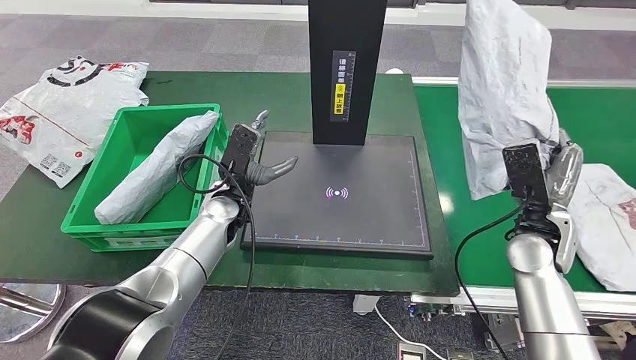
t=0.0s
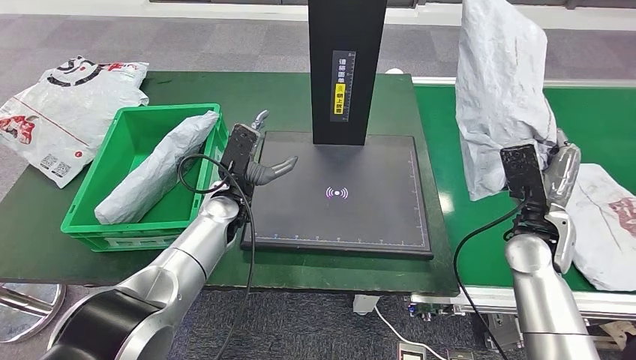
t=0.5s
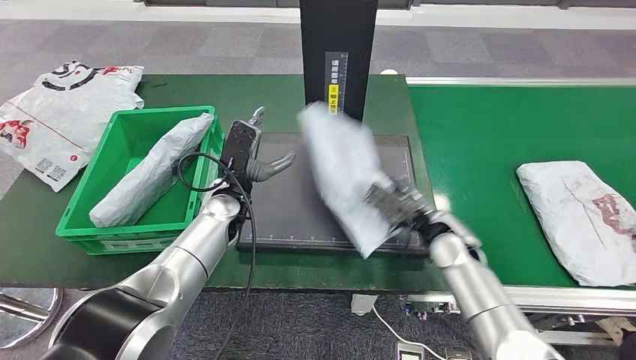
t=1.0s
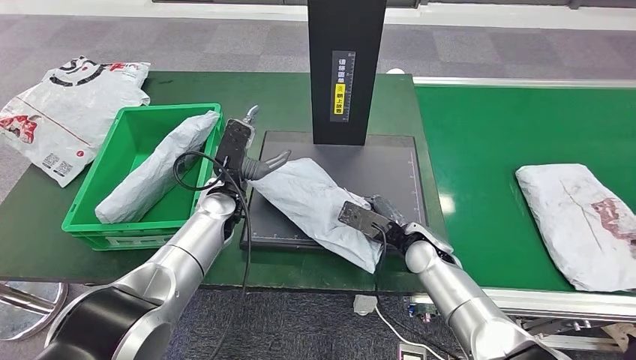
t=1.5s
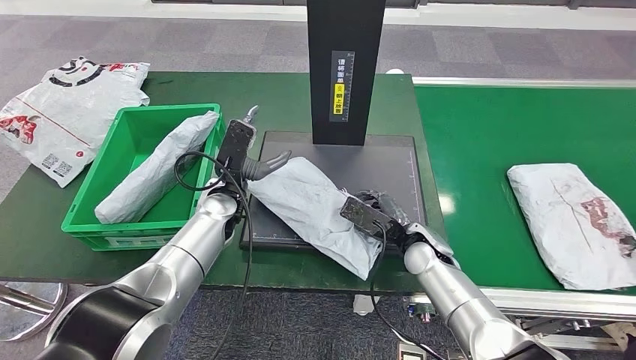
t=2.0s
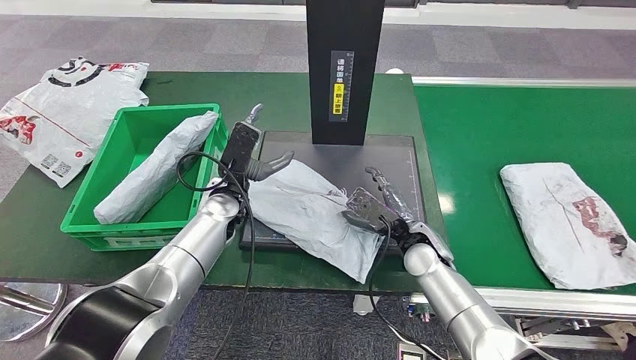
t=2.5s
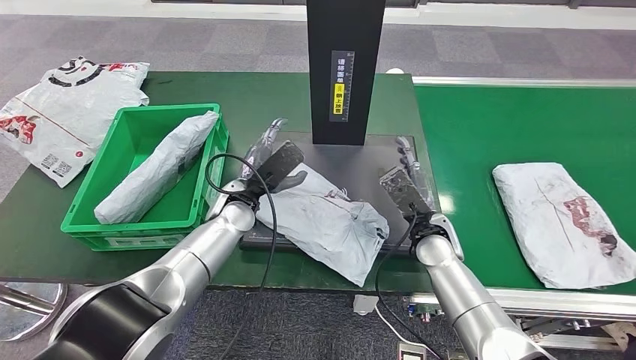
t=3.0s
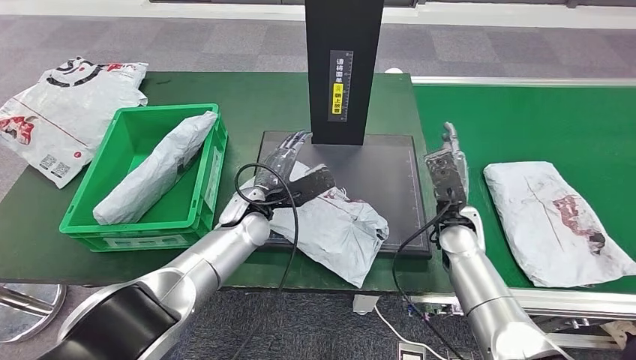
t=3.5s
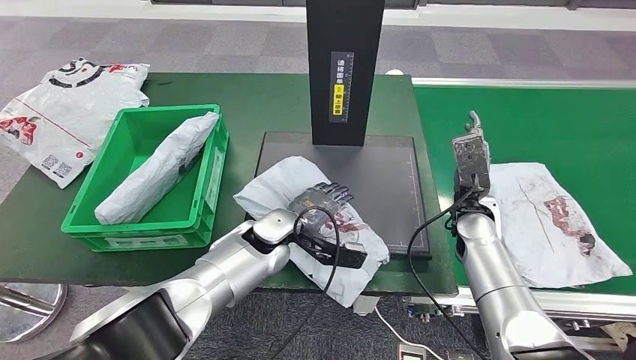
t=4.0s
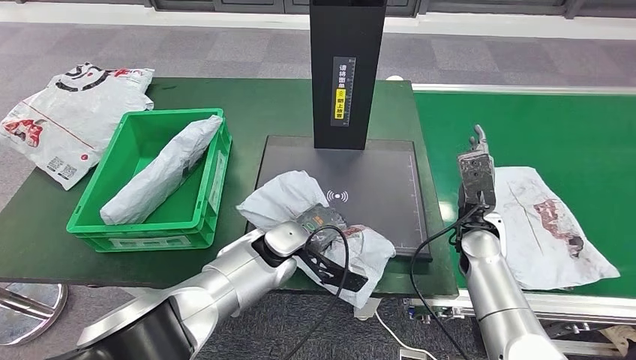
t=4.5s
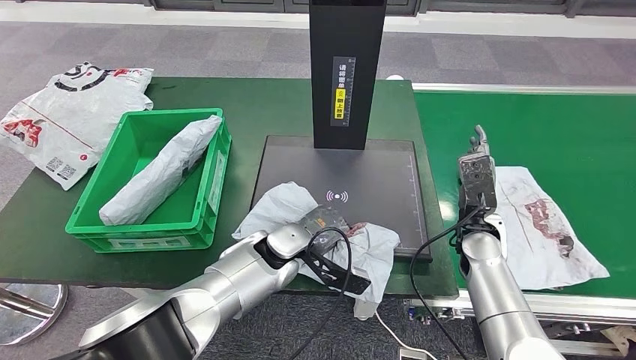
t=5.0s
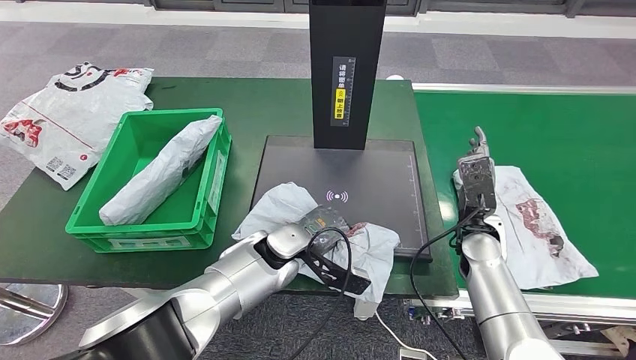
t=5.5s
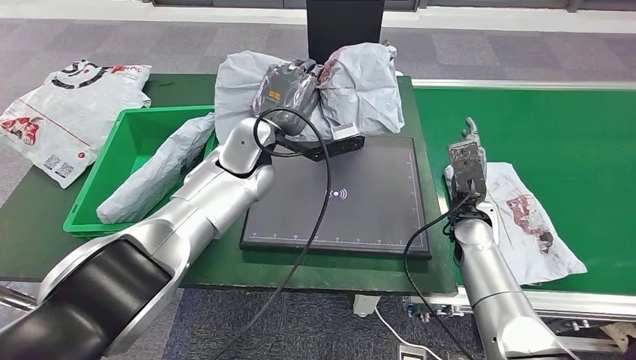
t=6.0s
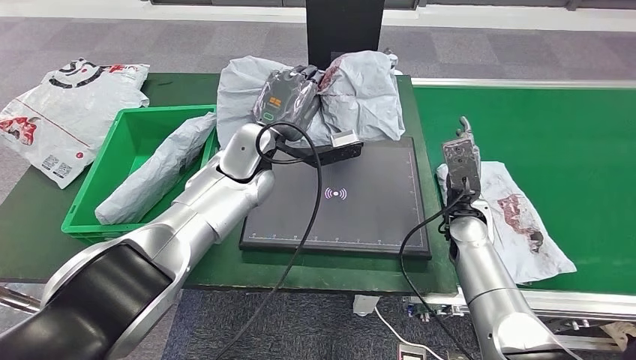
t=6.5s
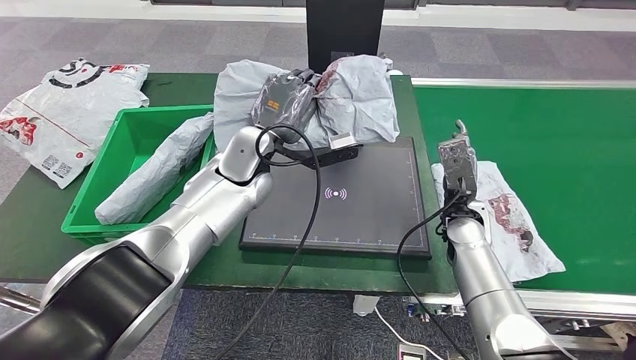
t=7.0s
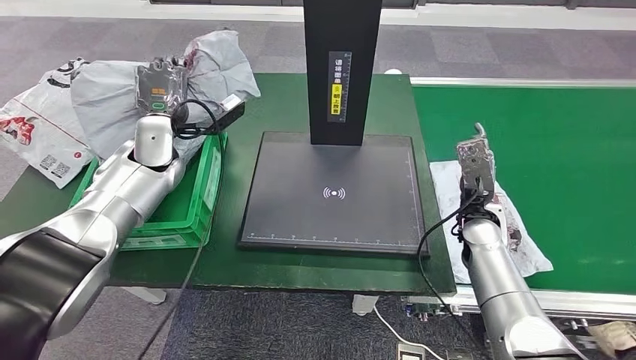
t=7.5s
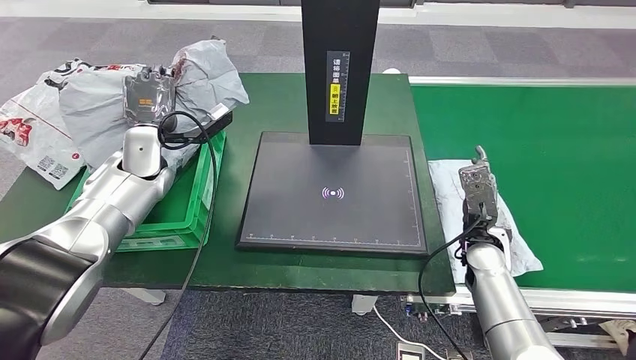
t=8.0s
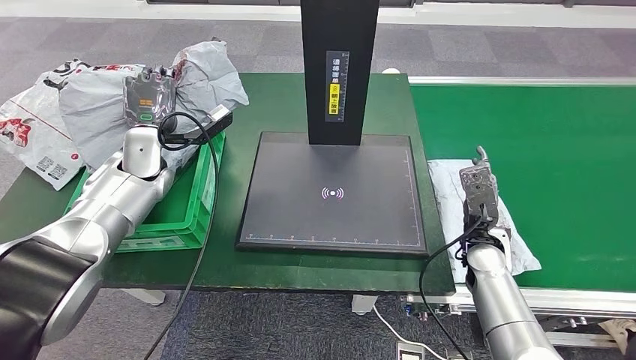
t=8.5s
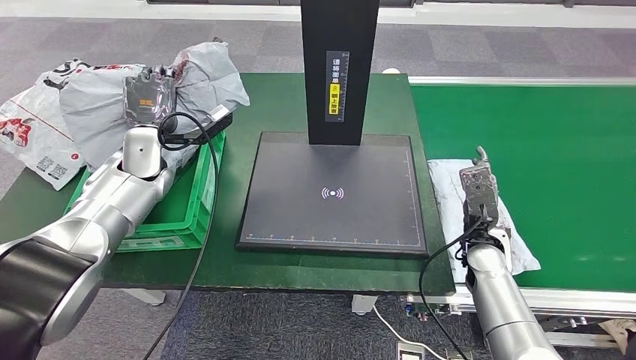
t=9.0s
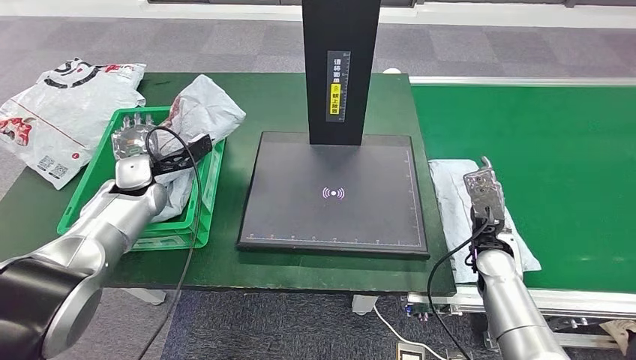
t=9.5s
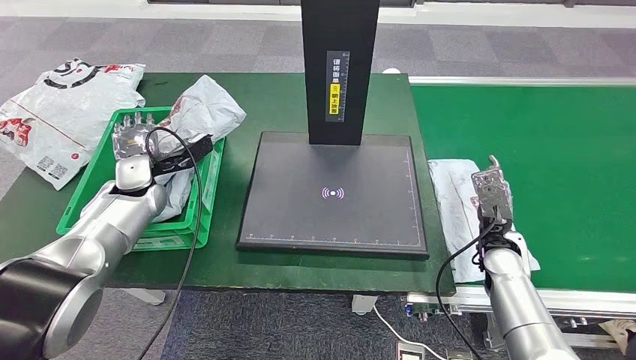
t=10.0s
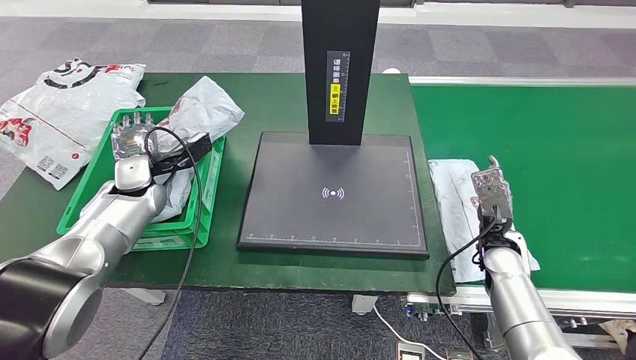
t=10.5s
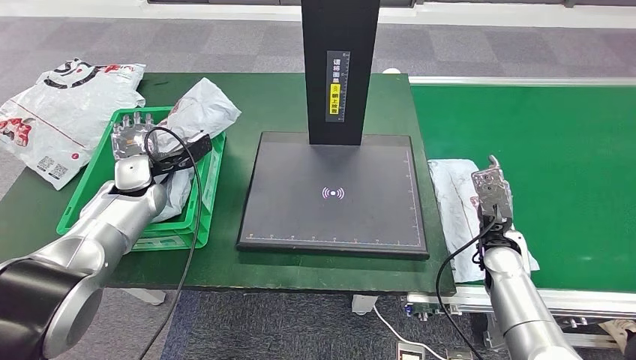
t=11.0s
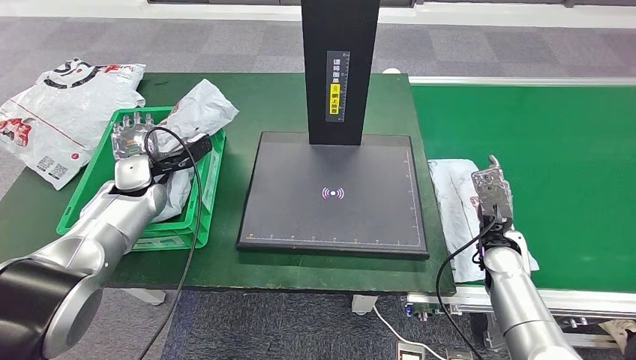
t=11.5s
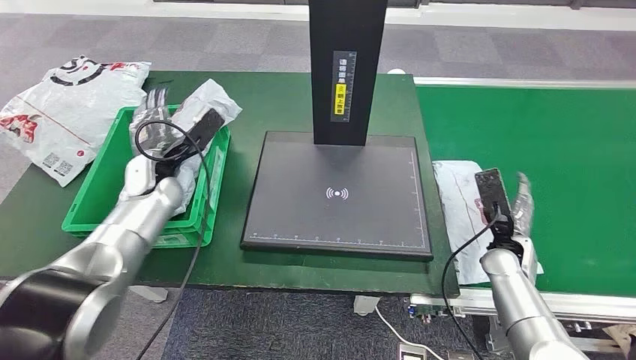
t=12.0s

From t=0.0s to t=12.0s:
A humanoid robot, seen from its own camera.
Step, from t=0.0s to t=2.5s: Place the parcel onto the inbound machine.
Step, from t=3.5s to t=5.5s: Pick up the parcel from the inbound machine.

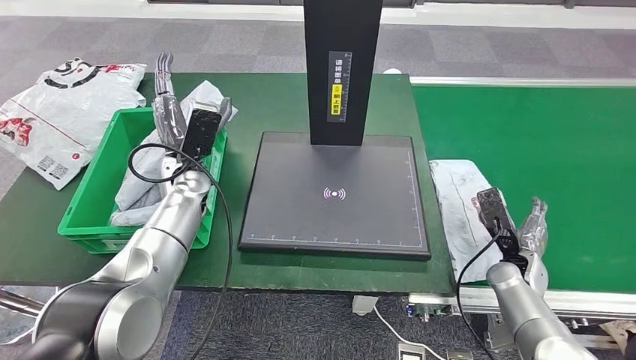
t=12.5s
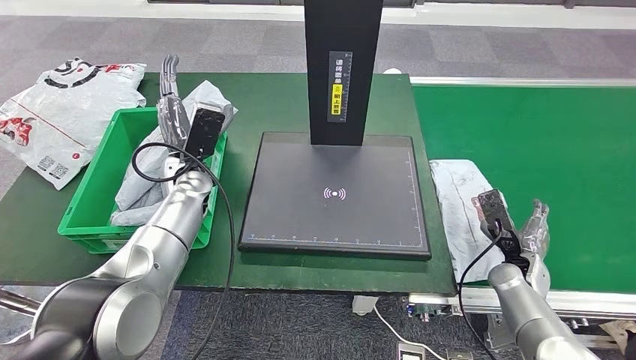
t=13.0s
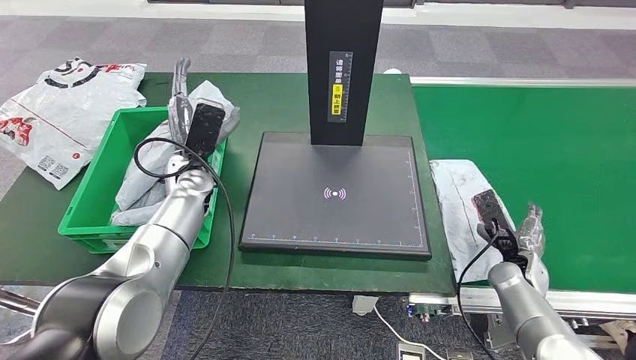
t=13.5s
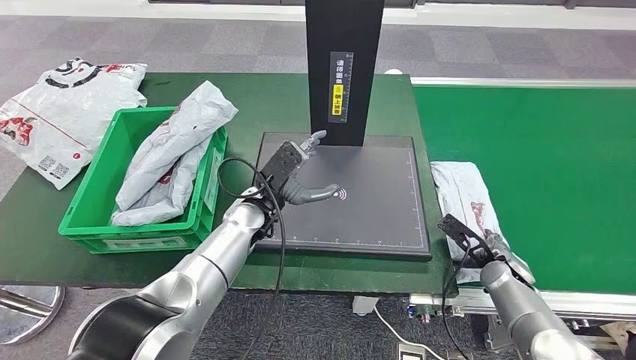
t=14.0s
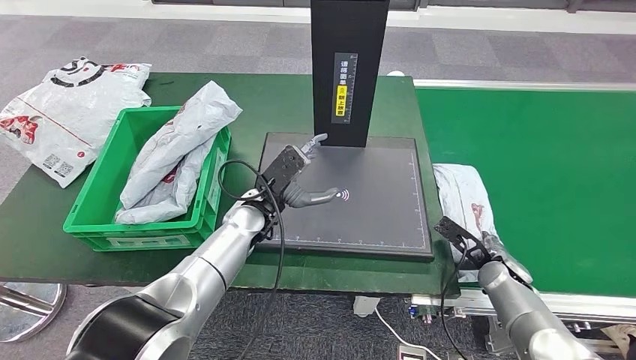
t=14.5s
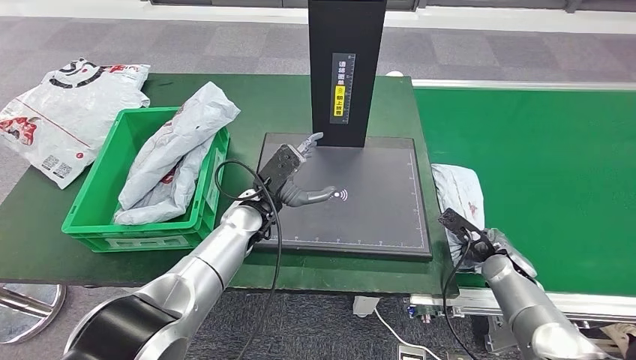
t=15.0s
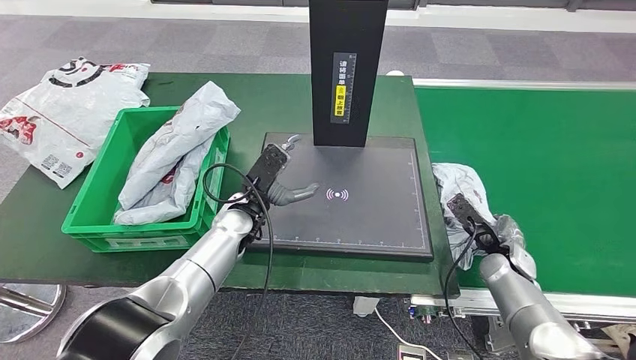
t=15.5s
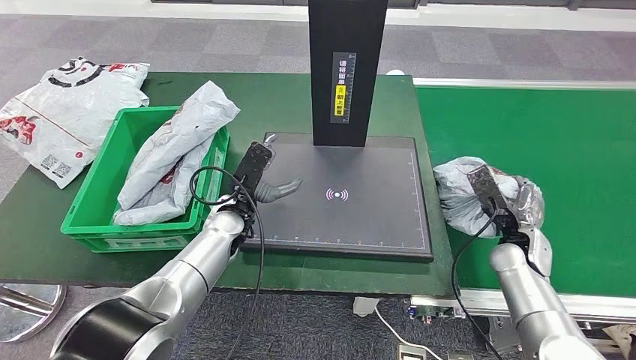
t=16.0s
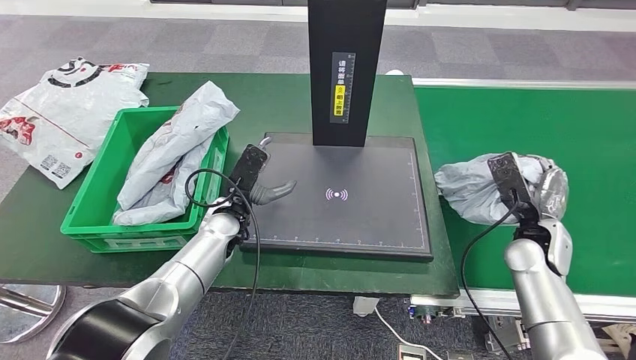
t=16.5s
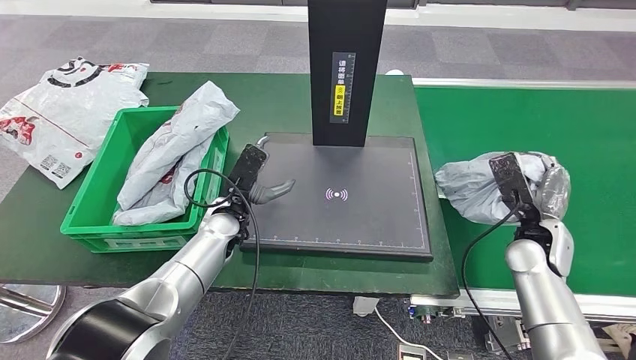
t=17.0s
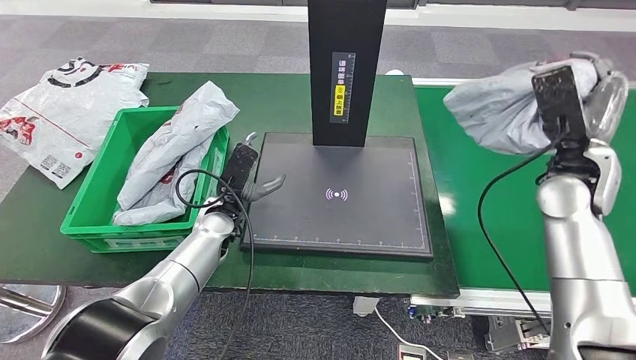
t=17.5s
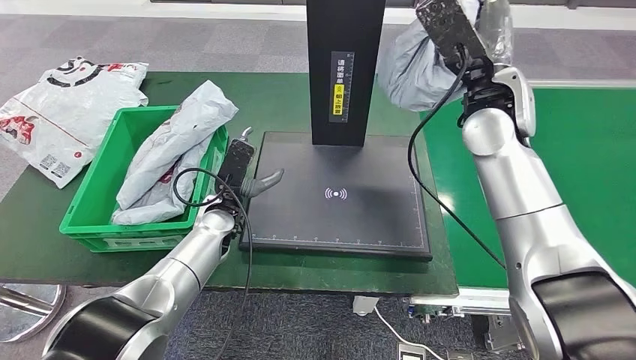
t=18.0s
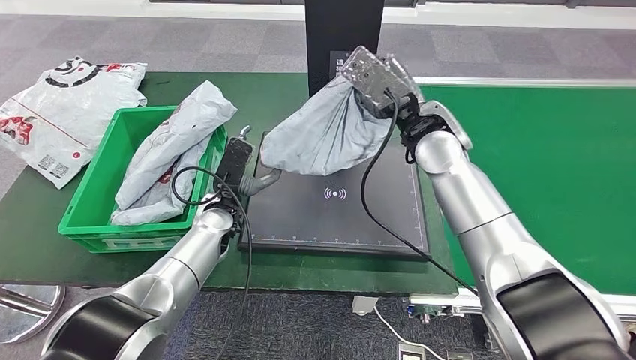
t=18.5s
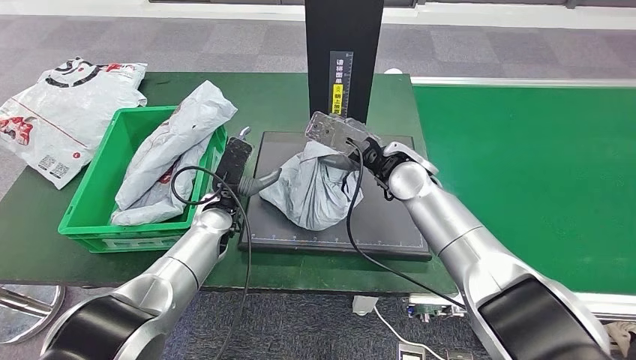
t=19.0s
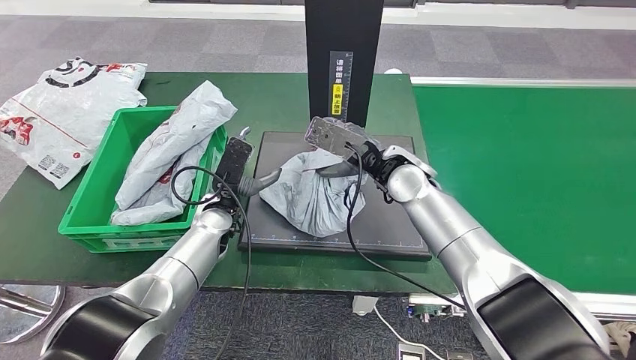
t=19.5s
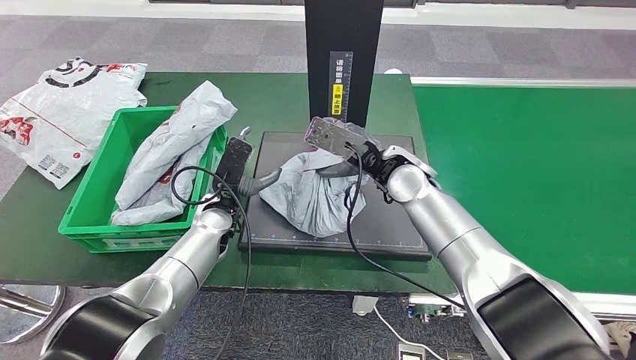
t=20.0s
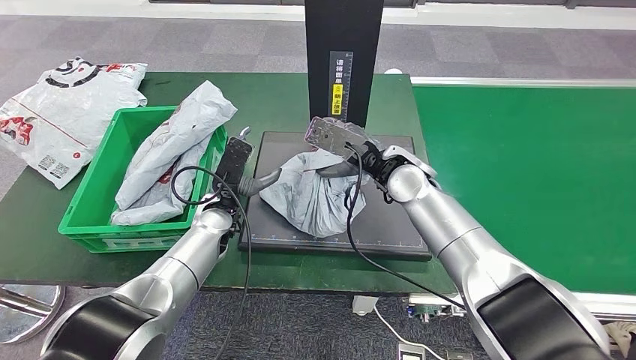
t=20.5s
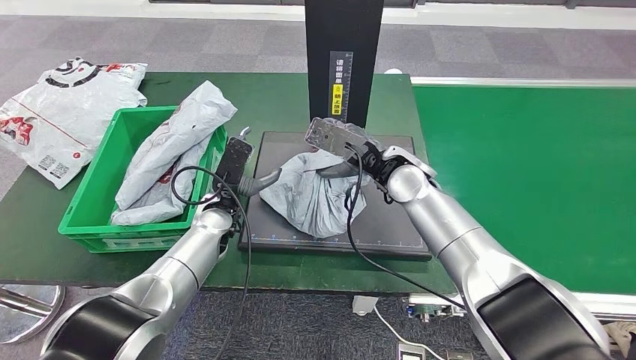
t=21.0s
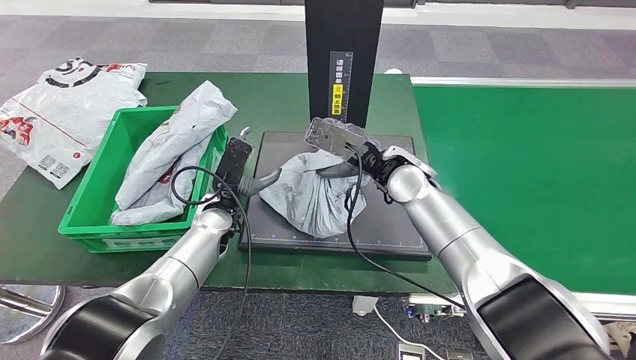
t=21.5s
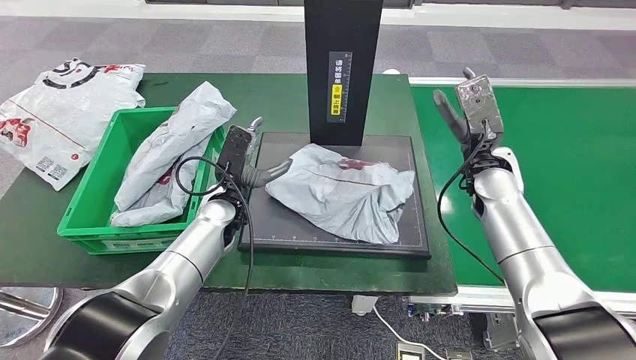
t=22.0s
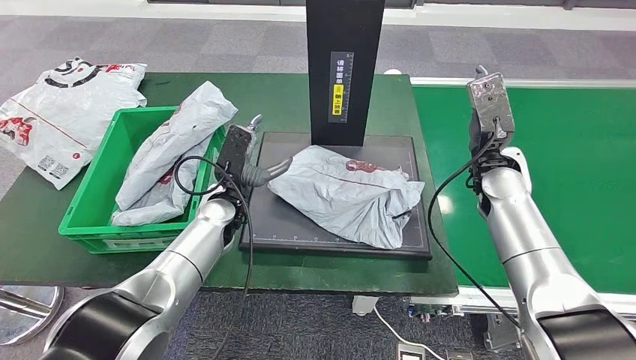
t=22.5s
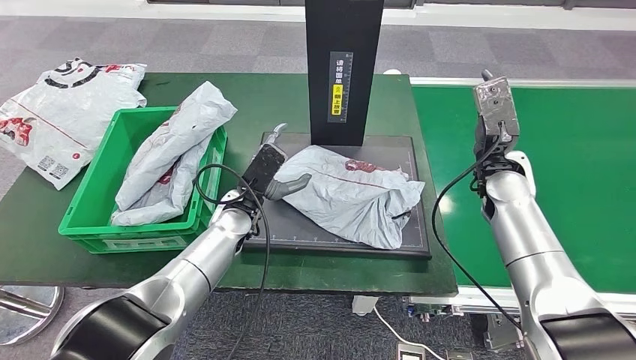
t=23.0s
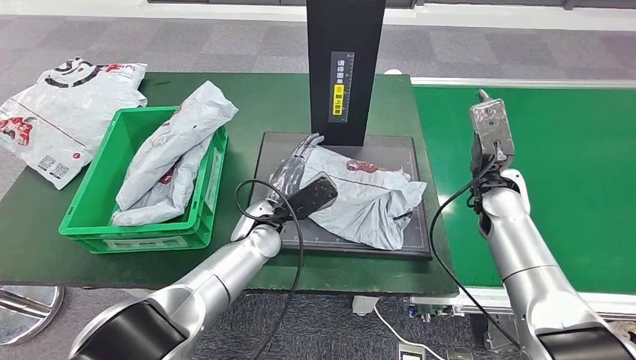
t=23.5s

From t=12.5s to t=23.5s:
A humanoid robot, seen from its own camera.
Step, from t=13.5s to t=16.5s: Pick up the parcel from the conveyor belt.
Step, from t=17.5s to t=22.0s: Place the parcel onto the inbound machine.
From t=14.5s to t=16.0s: The left hand ends up about 5 cm from where it was; the right hand moves upward, some 5 cm.
From t=20.0s to t=21.5s: The two hands keep their place.
